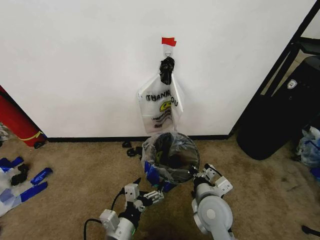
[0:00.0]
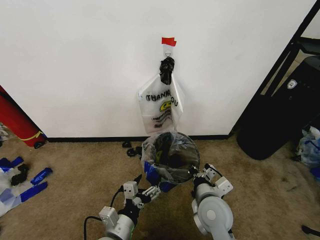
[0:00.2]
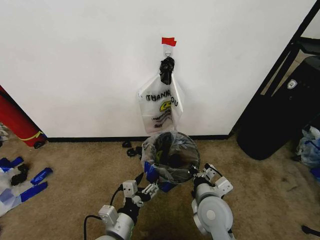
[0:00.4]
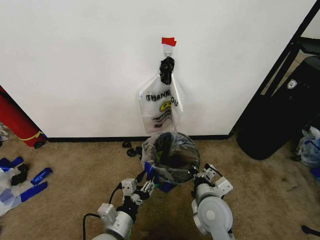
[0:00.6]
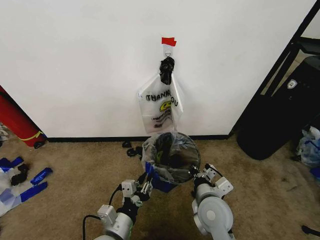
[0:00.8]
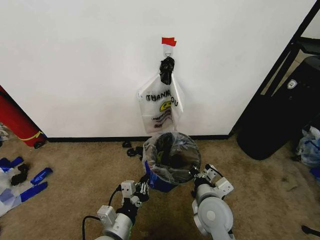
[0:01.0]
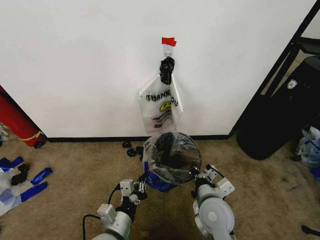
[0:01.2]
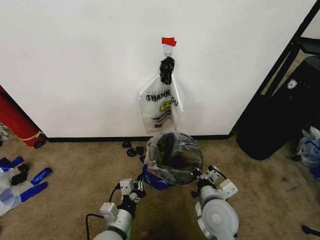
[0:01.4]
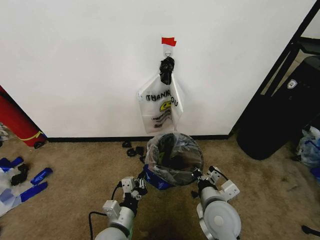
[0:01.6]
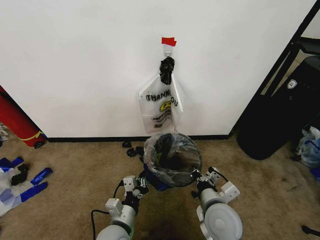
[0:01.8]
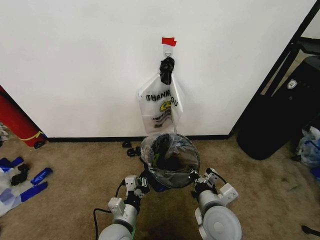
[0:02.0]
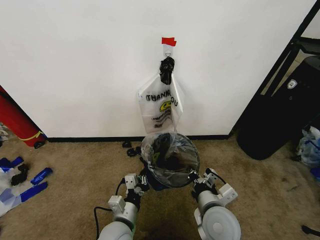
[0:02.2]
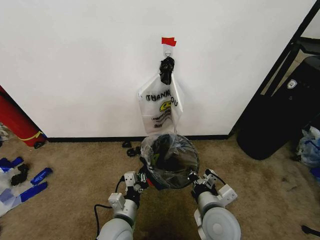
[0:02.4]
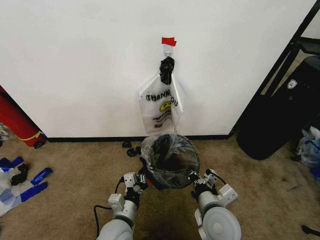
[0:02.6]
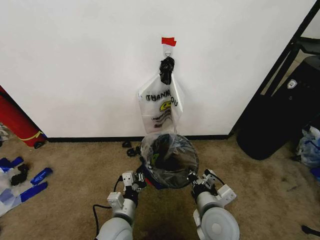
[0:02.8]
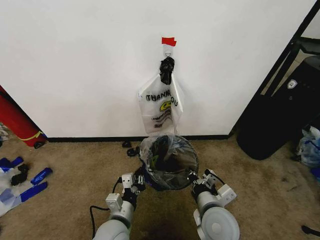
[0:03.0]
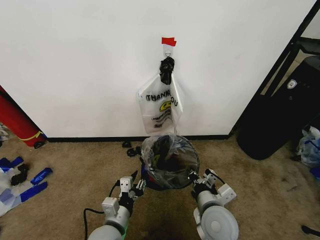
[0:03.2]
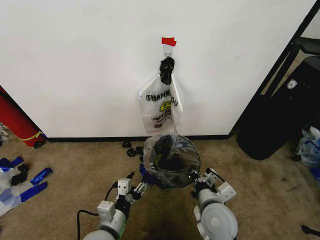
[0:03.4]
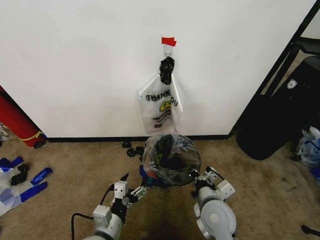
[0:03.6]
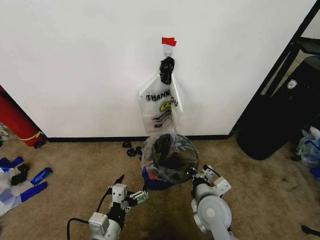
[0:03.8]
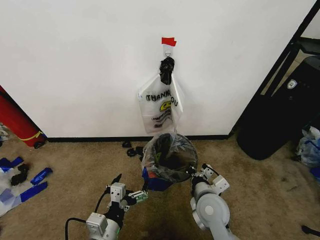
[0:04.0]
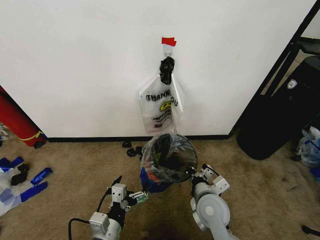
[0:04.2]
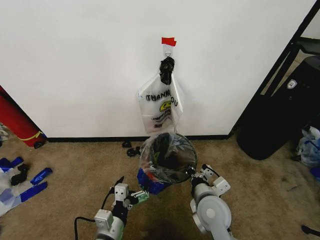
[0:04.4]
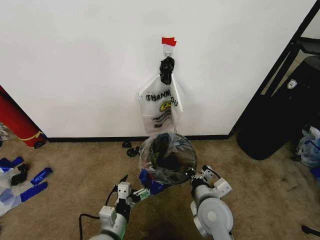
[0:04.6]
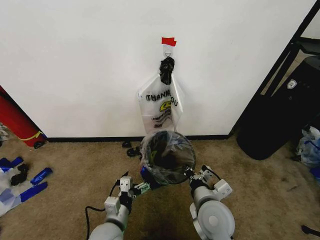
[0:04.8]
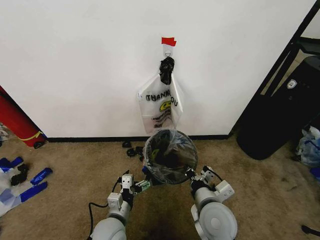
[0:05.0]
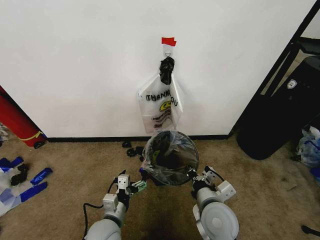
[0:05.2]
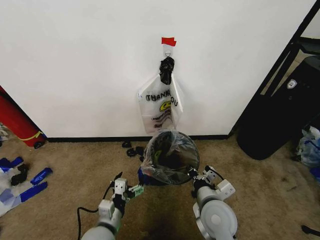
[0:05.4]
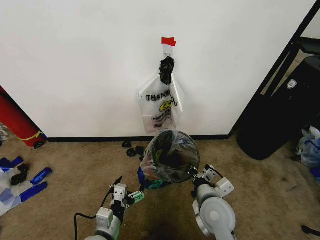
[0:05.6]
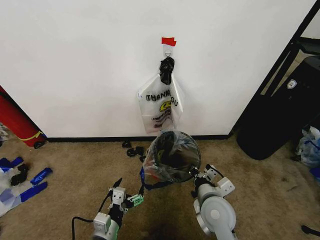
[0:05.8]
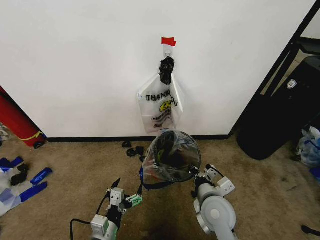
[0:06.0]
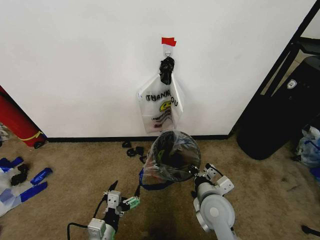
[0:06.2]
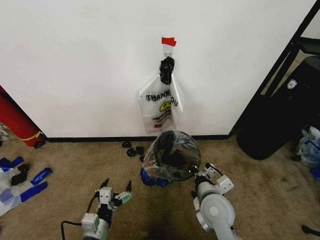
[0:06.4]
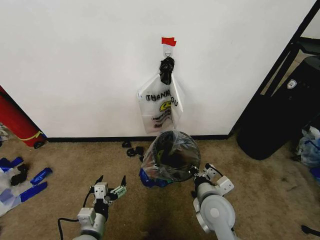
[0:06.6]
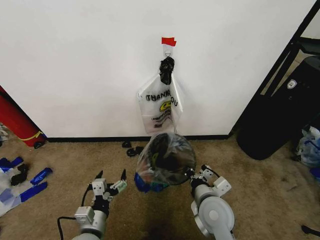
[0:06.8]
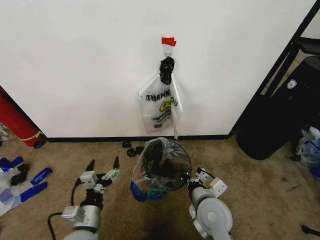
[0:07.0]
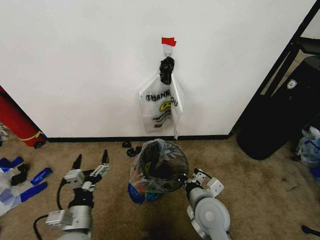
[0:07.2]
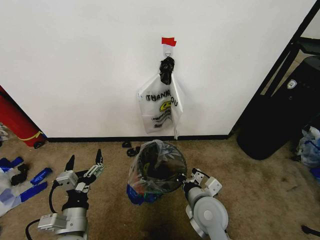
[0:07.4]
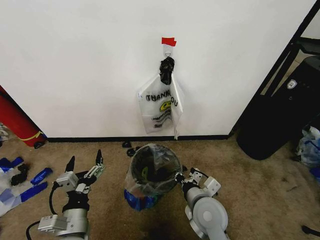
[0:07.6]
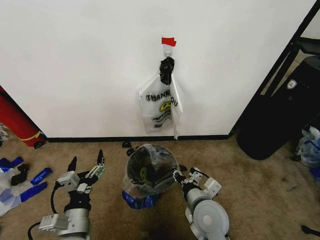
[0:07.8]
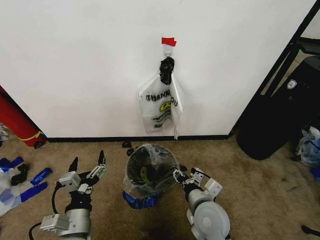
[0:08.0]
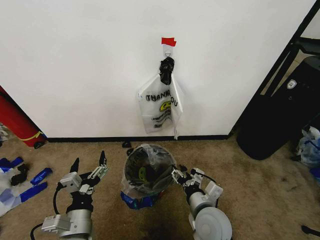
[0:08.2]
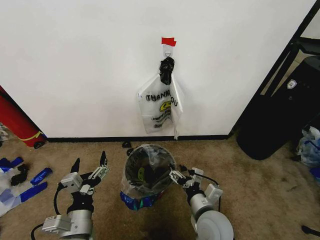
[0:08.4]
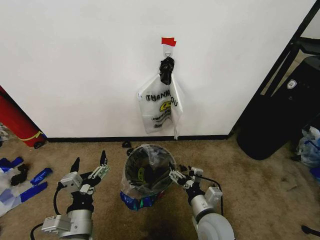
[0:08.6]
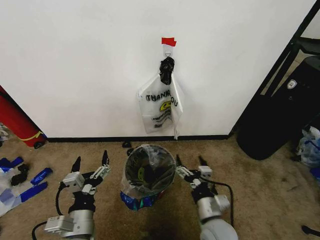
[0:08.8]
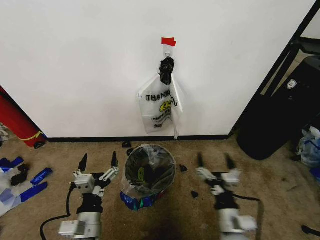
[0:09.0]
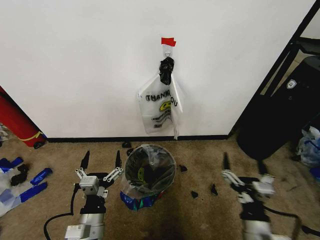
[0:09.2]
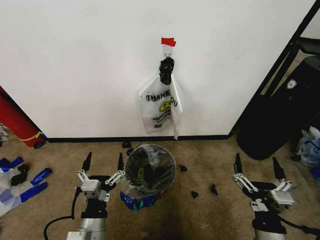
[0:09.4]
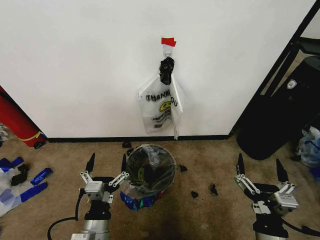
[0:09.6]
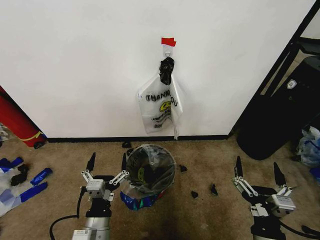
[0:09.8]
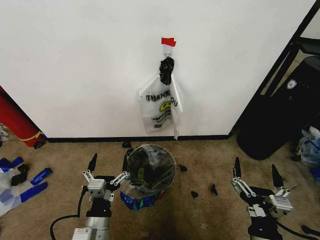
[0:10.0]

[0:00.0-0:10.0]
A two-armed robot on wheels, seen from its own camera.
Task of the whole recording: Pick up the garbage bag from the wall and place it over the trash bin.
0:00.0 to 0:01.4: The left gripper closes up.
0:01.4 to 0:02.8: The grippers make only small movements.
0:02.8 to 0:04.2: The right gripper ends up about 5 cm from where it was; the left gripper travels backward by approximately 5 cm, and opens up.
0:04.2 to 0:05.8: The left gripper reaches some 10 cm forward, then returns.
0:05.8 to 0:07.2: The left gripper shifts about 5 cm upward.
0:07.2 to 0:08.6: The right gripper ends up roughly 5 cm from where it was, and opens.
0:08.6 to 0:10.0: The right gripper shifts some 15 cm backward, to the right and upward.

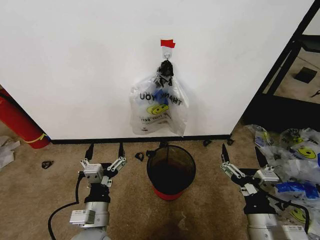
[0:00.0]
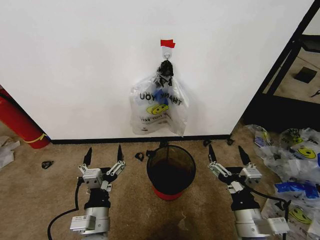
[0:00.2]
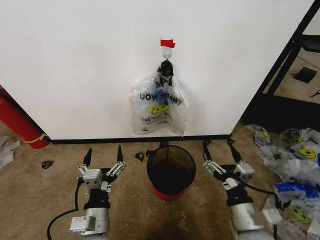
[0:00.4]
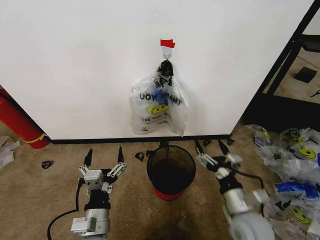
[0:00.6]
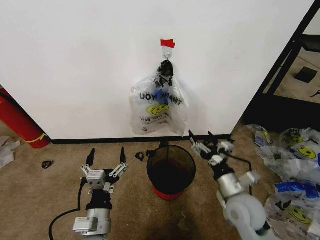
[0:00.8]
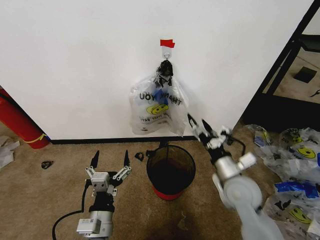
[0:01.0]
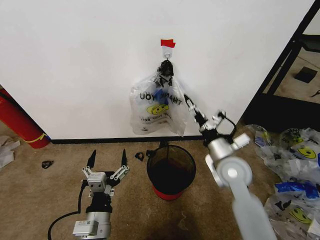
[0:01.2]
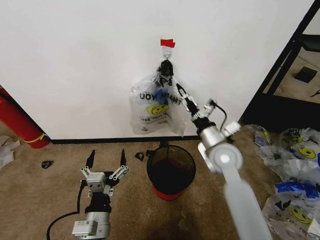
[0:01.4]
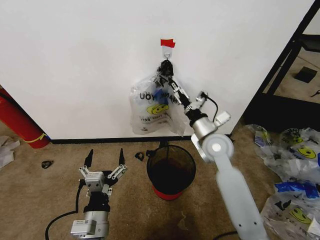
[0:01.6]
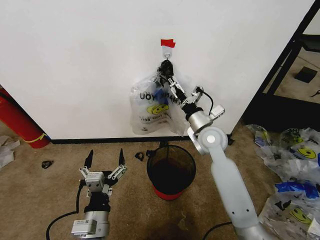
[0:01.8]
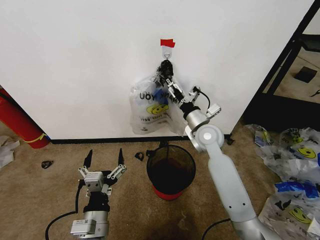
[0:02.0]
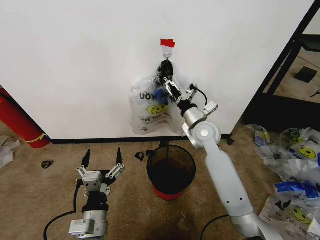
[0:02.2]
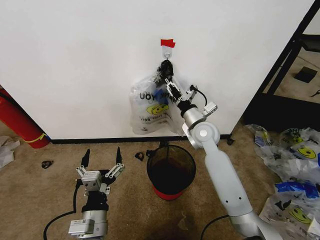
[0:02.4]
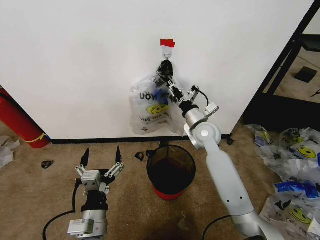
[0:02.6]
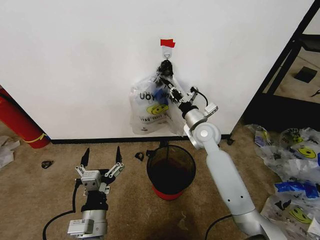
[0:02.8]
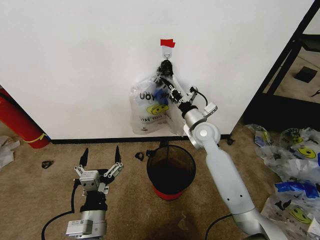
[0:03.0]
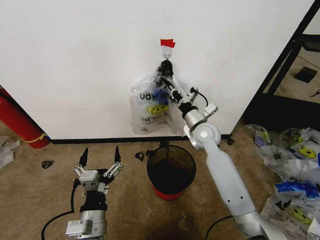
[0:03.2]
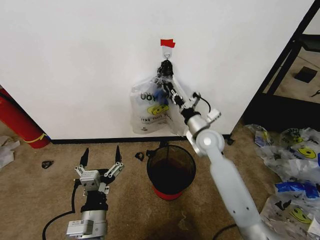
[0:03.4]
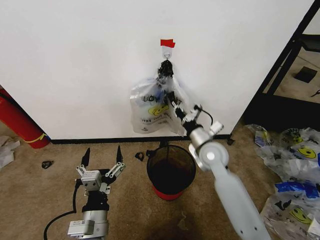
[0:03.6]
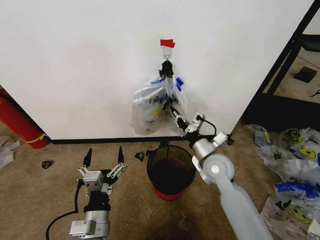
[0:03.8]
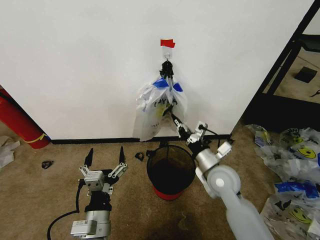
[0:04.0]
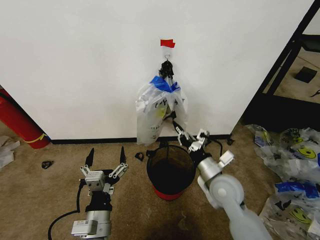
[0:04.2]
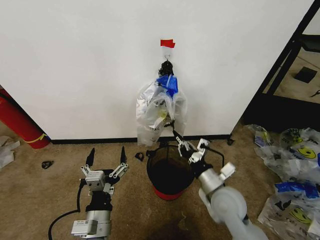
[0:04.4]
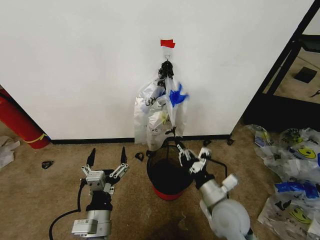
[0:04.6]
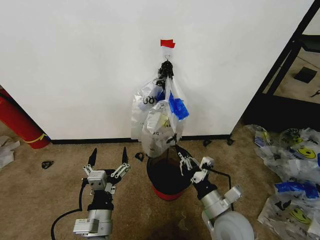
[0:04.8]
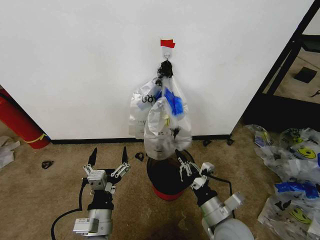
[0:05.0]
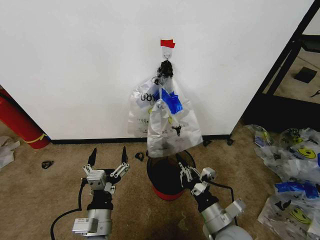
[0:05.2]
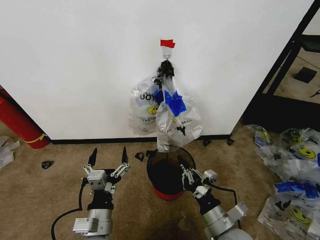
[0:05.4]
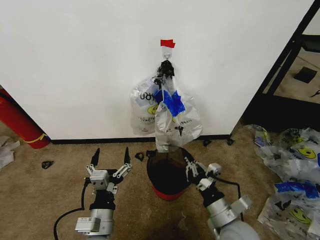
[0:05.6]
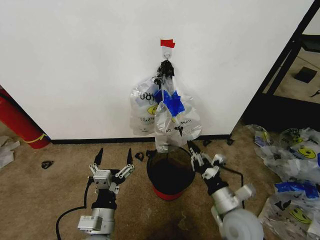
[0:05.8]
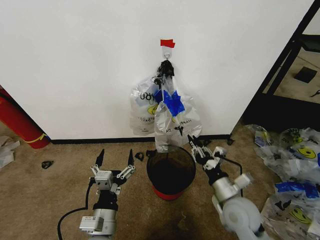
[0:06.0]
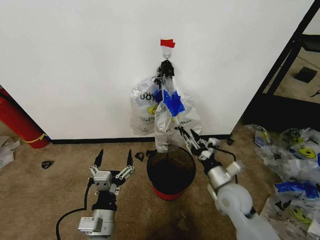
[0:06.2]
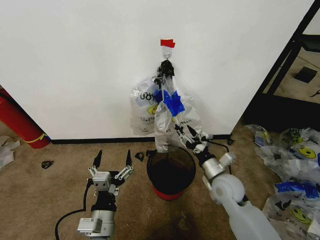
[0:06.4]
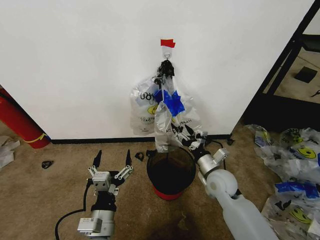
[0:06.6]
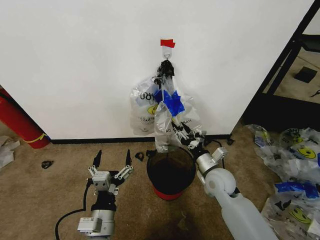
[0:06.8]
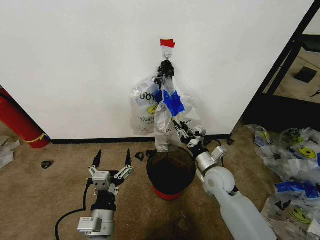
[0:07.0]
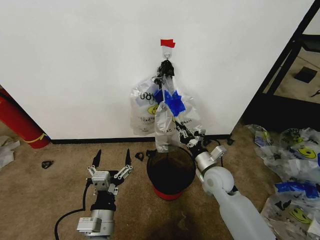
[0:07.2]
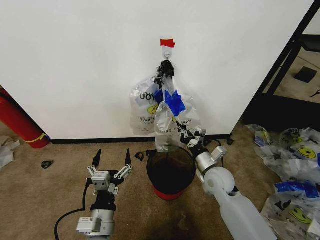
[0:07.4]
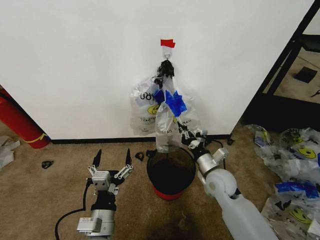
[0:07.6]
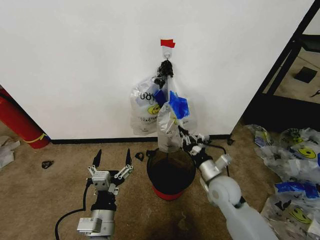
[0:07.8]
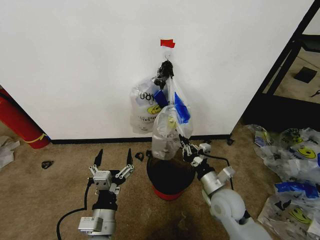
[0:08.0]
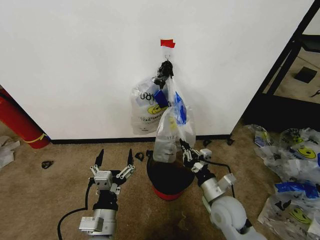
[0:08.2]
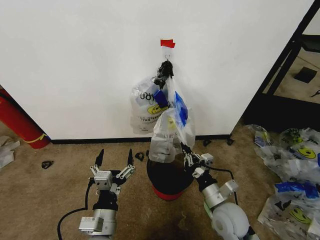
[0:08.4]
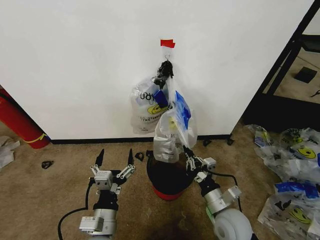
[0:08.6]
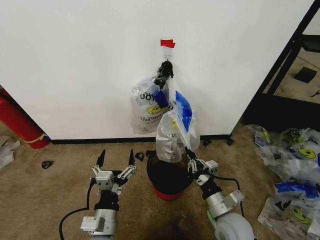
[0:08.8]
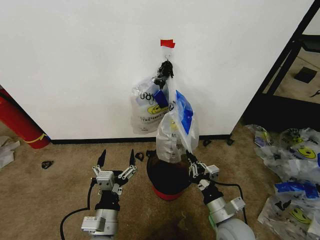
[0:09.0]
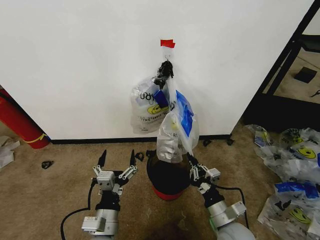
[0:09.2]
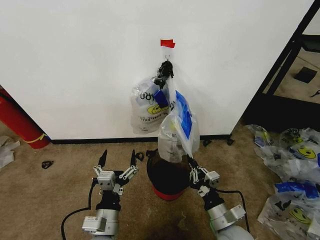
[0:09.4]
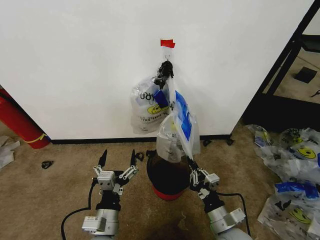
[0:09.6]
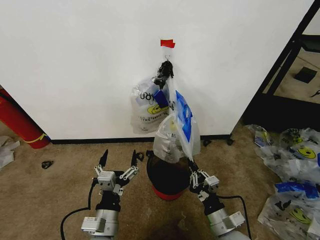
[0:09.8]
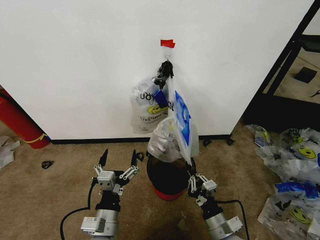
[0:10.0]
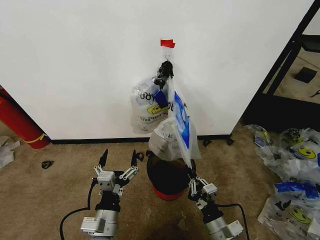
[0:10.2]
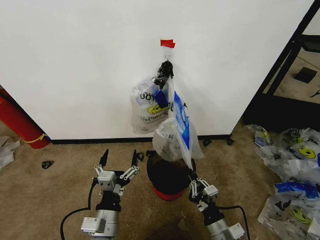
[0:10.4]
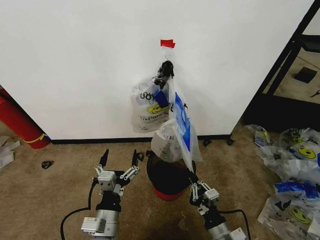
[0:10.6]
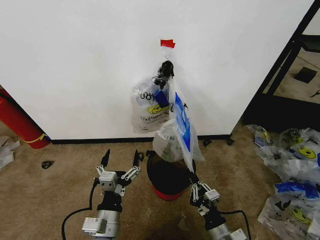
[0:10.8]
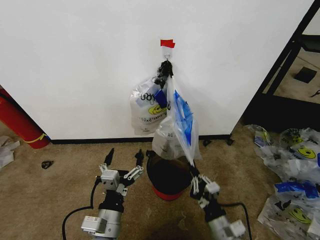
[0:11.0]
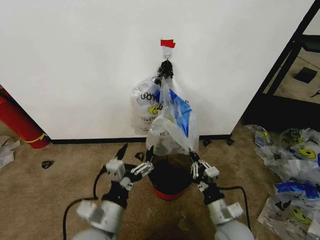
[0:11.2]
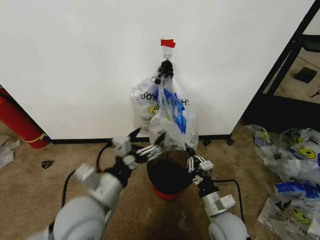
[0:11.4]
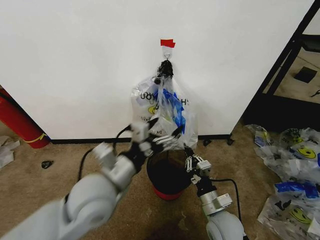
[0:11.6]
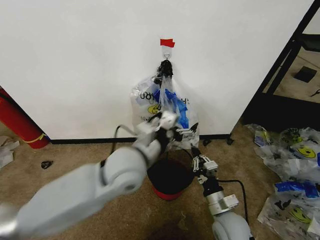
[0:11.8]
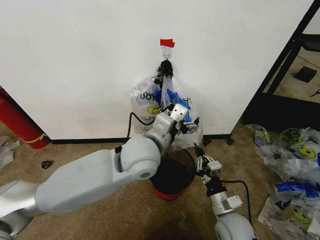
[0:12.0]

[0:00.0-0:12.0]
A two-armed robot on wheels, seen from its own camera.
Task of the whole recording: Pick up the garbage bag from the wall and place it over the trash bin.
0:01.6 to 0:03.0: The right gripper shifts approximately 5 cm forward, and closes.
0:03.0 to 0:04.4: The right gripper moves backward, approximately 20 cm.
0:04.4 to 0:06.0: The right gripper goes backward and returns, approximately 10 cm each way.
0:06.0 to 0:07.6: The right gripper is displaced forward by roughly 10 cm, and opens, then closes again.
0:07.6 to 0:09.0: The right gripper shifts roughly 15 cm backward.
0:09.0 to 0:10.4: The right gripper moves backward, about 5 cm.
0:10.4 to 0:12.0: The left gripper goes some 25 cm upward, forward and to the right. Meanwhile the right gripper shifts some 5 cm forward.
